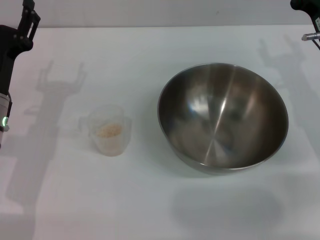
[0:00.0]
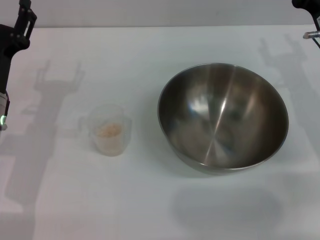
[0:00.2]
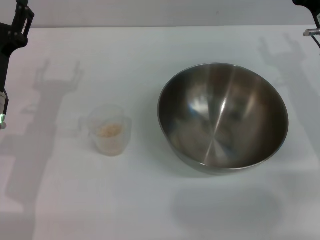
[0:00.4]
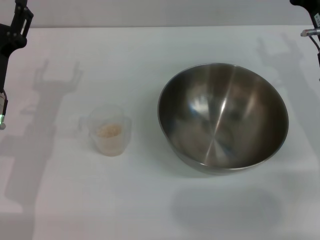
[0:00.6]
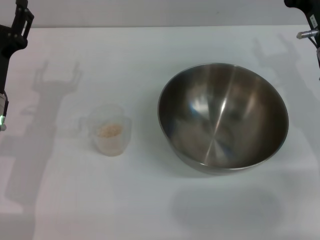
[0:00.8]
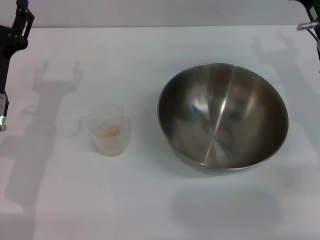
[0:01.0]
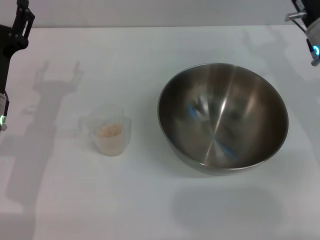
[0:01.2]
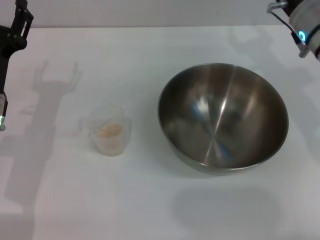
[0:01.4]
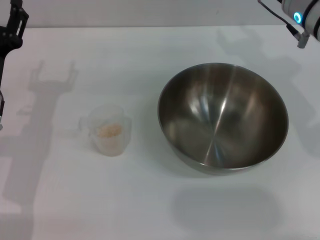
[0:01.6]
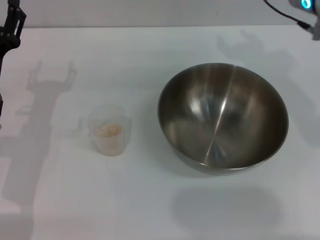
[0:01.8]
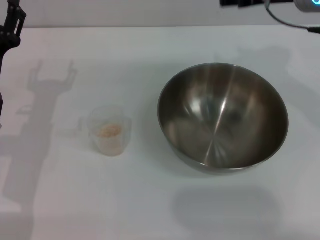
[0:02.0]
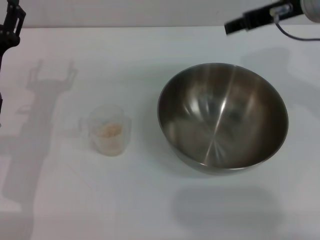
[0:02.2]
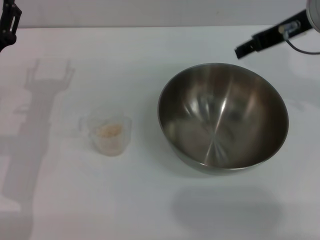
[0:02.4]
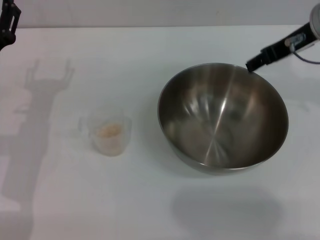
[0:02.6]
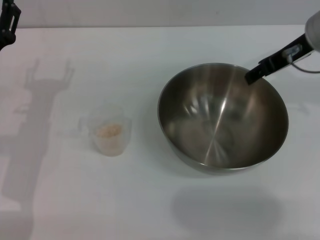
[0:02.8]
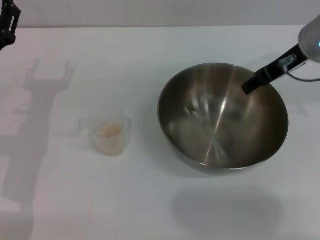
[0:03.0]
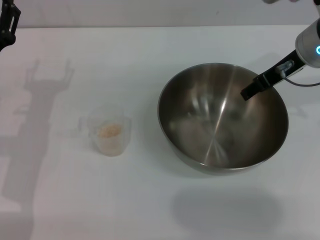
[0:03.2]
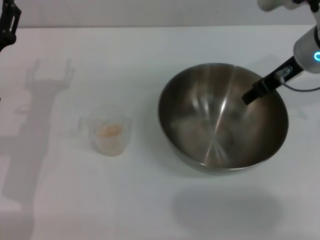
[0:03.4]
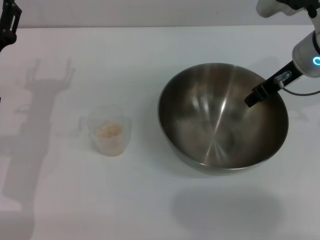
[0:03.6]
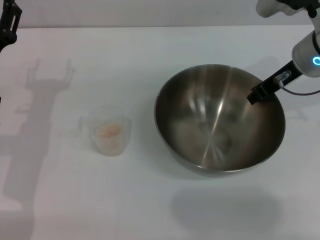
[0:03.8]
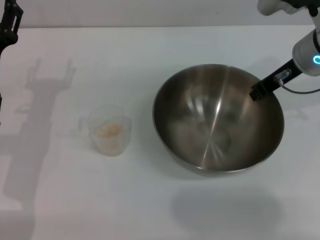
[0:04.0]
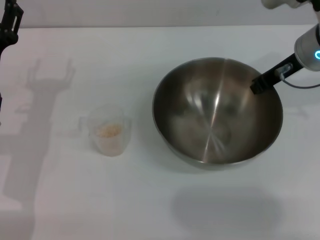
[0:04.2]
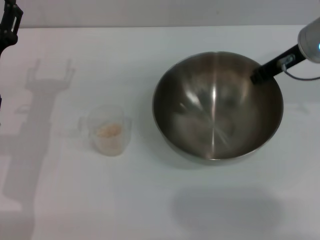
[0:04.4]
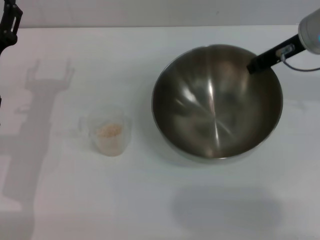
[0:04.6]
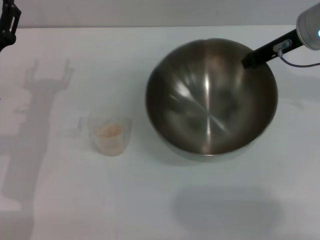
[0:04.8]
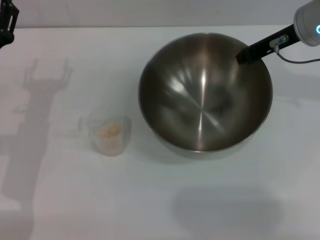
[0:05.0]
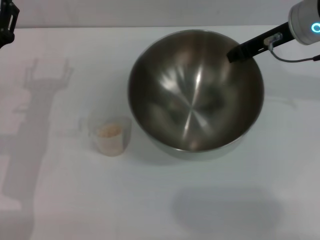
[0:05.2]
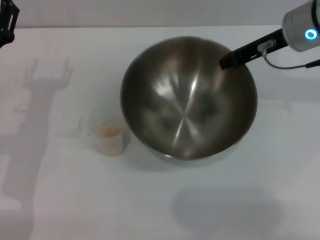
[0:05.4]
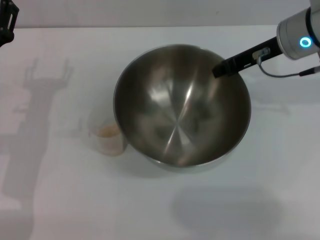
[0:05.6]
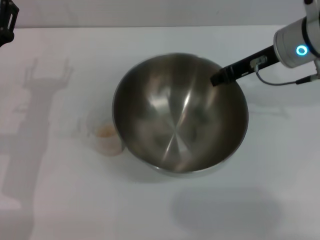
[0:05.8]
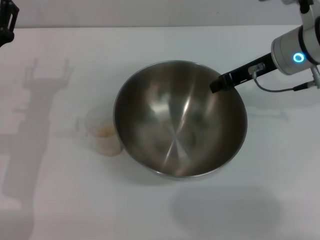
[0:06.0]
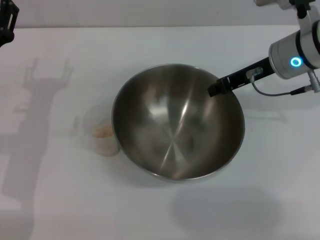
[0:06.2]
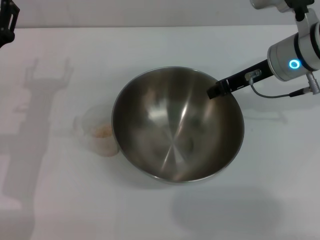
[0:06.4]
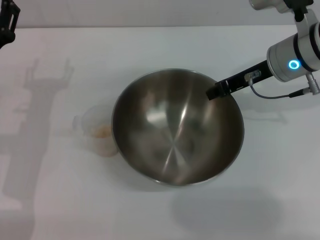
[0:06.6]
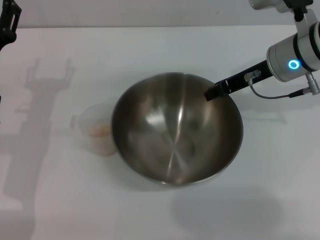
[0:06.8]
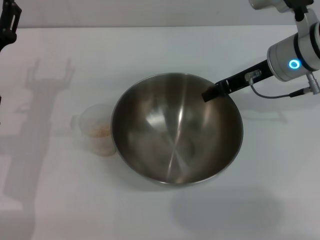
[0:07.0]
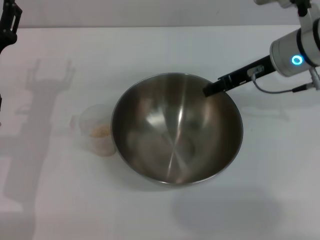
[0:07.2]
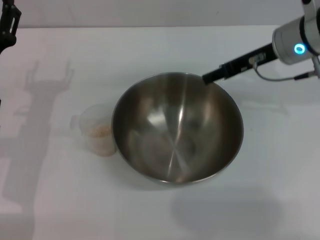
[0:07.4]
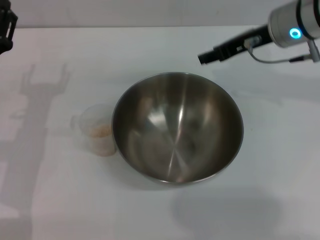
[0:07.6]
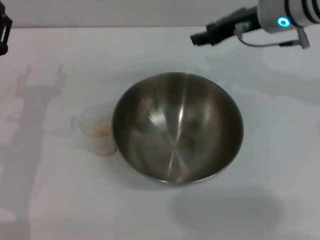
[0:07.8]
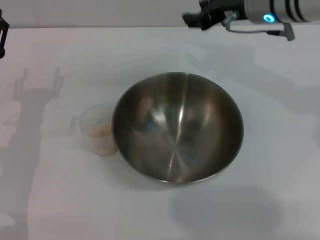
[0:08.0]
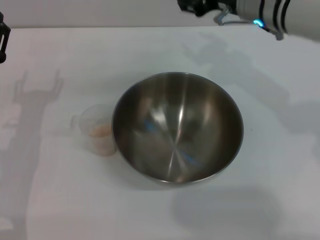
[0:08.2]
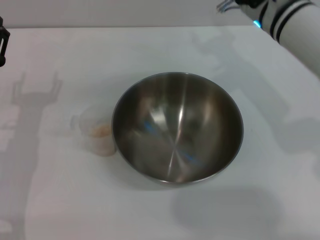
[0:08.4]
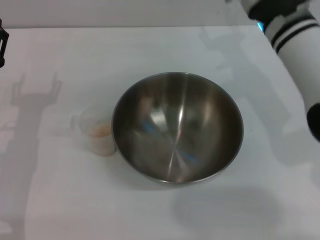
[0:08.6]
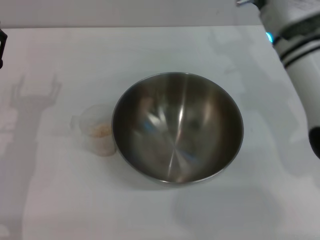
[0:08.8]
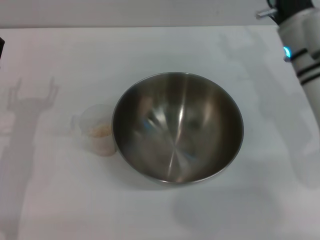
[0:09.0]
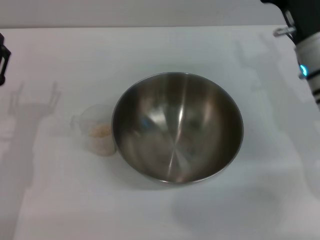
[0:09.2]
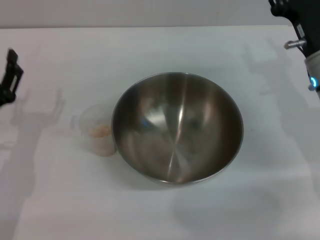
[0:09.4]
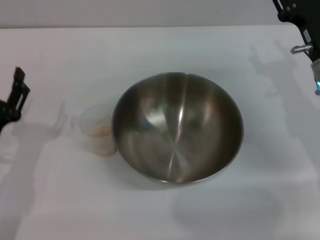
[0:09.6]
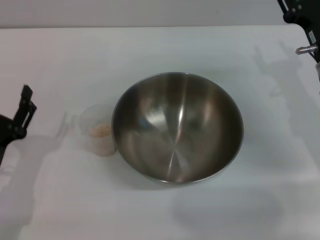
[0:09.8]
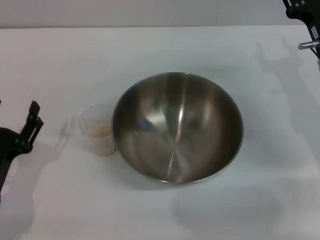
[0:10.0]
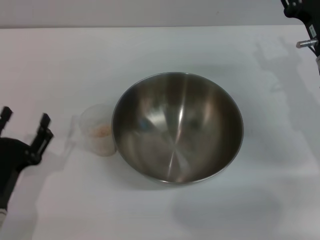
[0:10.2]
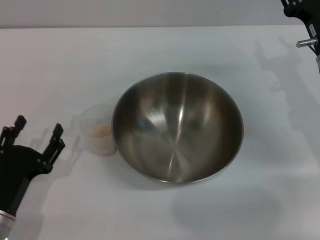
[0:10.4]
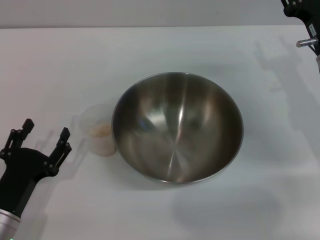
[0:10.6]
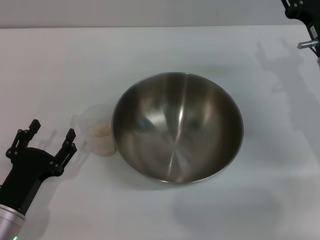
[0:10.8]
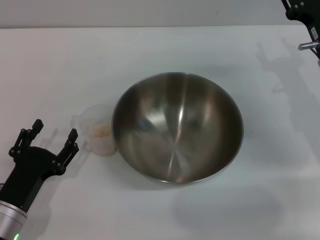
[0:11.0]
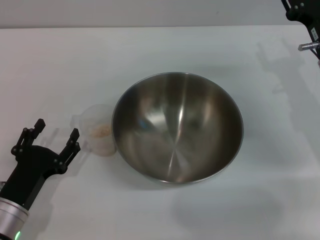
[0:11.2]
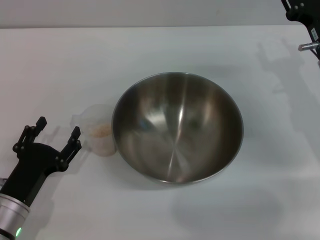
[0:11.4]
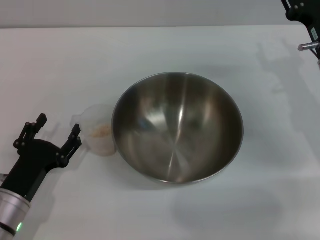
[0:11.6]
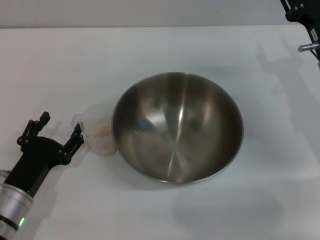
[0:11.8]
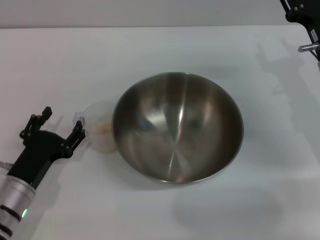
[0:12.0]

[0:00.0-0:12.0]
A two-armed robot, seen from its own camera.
Task of the whole recording: Place the bowl in the middle of the table with one hand and pour the rice from the grain cup into it with the other hand.
Step, 0:00.0 to 0:04.4: Pick up the bowl with the right gripper.
Step, 0:04.6 to 0:07.4: Place the bowl in the center of view with the right gripper.
0:00.0 to 0:01.6: The right gripper goes about 10 cm upward and to the left.
0:03.0 to 0:04.4: The right gripper closes up.
0:06.0 to 0:07.6: The right gripper opens up.
0:07.6 to 0:09.0: The right gripper moves downward, about 5 cm.
0:09.0 to 0:10.4: The left gripper goes some 10 cm backward and downward; the right gripper shifts some 5 cm to the right.
0:10.4 to 0:12.0: There are only small adjustments of the grippers.

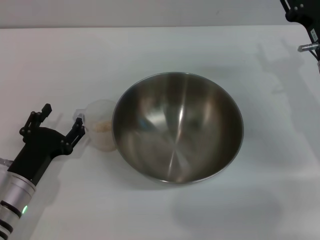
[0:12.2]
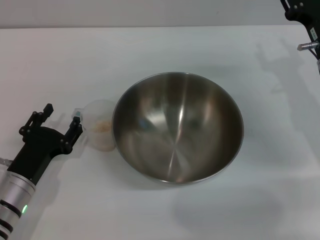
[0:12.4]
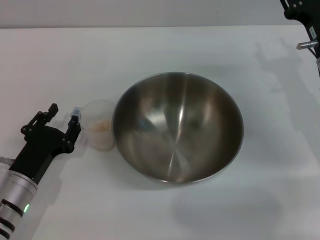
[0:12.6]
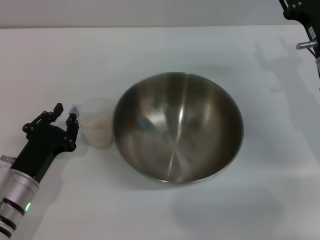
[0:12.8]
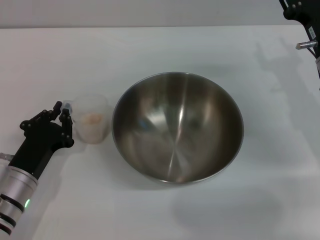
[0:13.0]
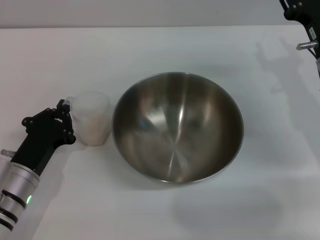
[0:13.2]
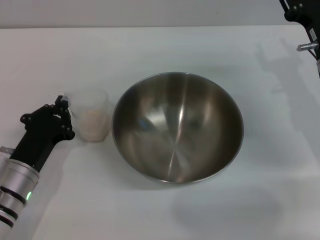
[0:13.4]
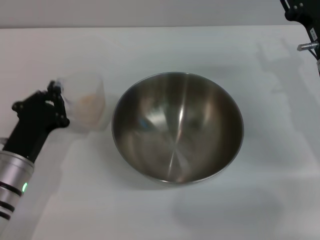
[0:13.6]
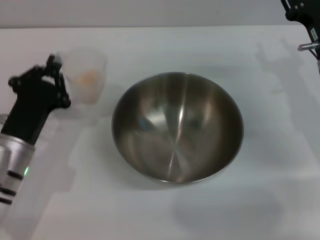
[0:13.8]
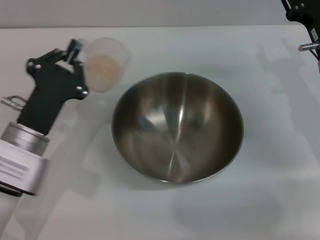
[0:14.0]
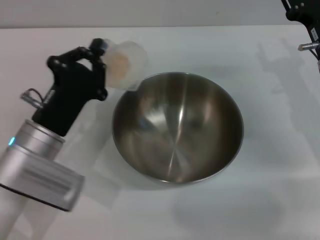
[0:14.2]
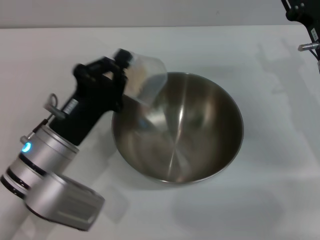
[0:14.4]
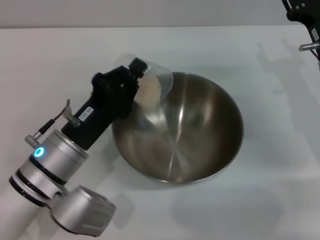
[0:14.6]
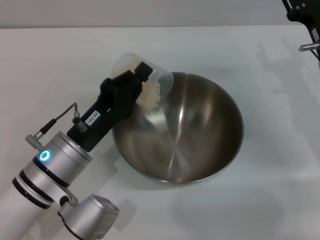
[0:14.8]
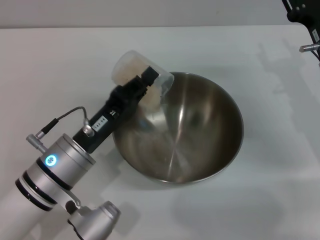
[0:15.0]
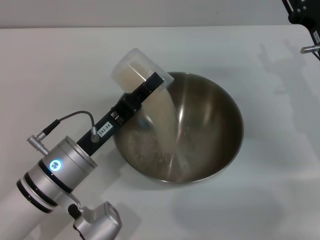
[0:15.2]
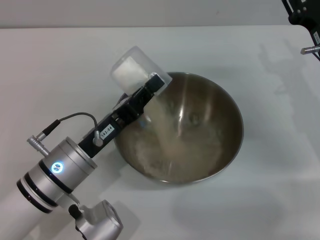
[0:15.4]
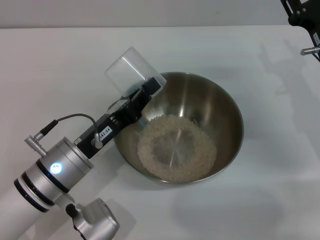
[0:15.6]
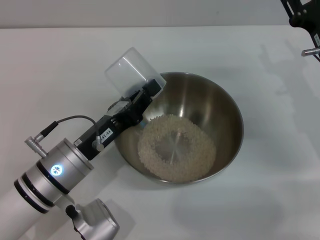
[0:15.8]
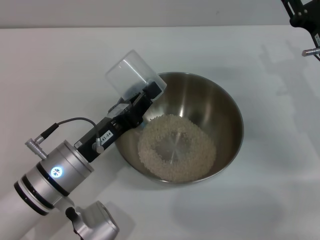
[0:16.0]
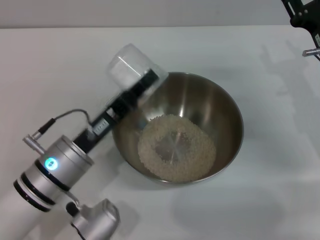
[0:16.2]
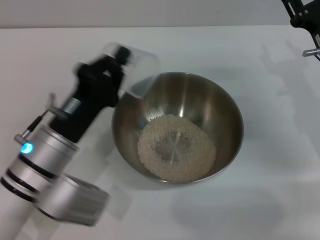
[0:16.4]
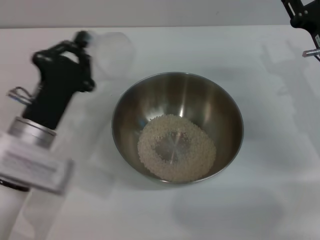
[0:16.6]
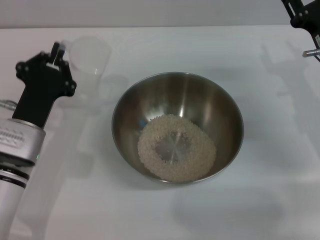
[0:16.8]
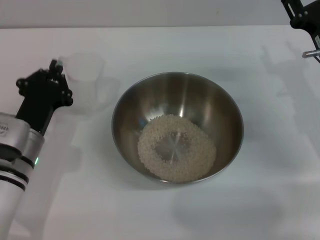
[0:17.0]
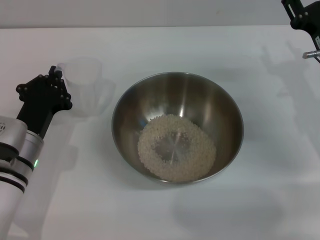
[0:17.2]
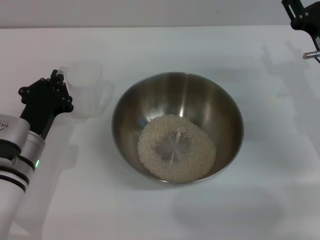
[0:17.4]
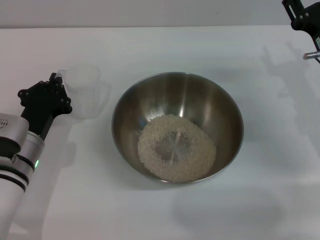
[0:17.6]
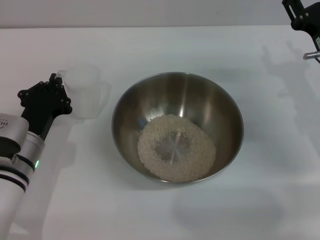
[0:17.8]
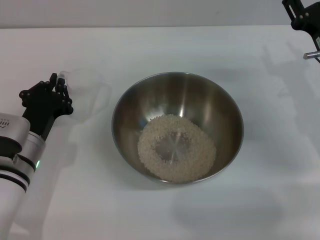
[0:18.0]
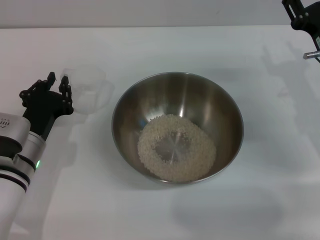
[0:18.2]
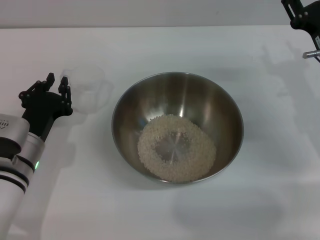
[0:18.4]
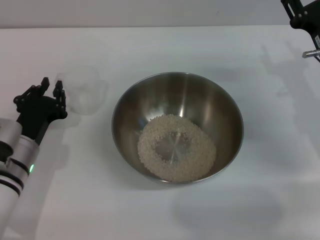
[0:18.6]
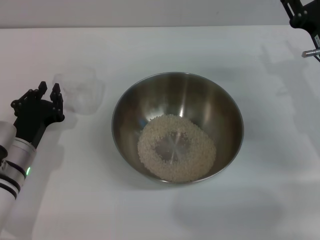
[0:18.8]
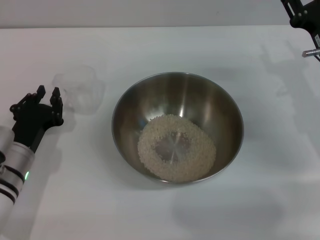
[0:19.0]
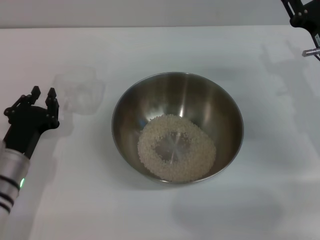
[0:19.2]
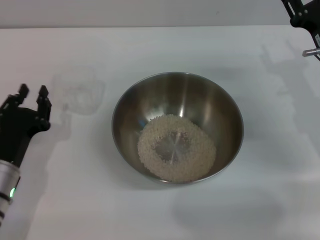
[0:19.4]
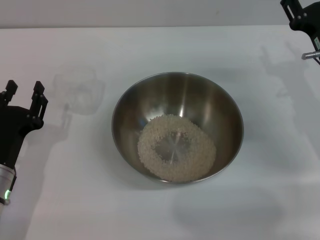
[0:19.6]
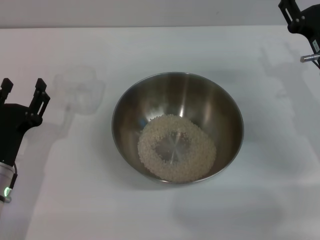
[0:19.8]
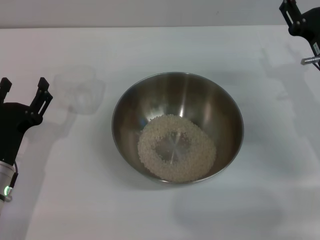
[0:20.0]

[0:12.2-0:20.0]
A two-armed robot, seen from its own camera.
Task of the whole recording: Place the bowl in the middle of the table with one hand and pour the rice from the grain cup into it with the other hand.
Step, 0:13.6 to 0:16.0: Pour the rice from the cup into the bowl with the left gripper.
Step, 0:16.4 to 0:19.2: Place the cup on the table with the left gripper.
0:12.2 to 0:13.8: The left gripper closes.
0:13.8 to 0:15.4: The left gripper goes about 5 cm to the right.
0:15.4 to 0:16.8: The left gripper is displaced to the left by approximately 5 cm.
0:18.4 to 0:20.0: The left gripper changes place by some 5 cm, and opens.
